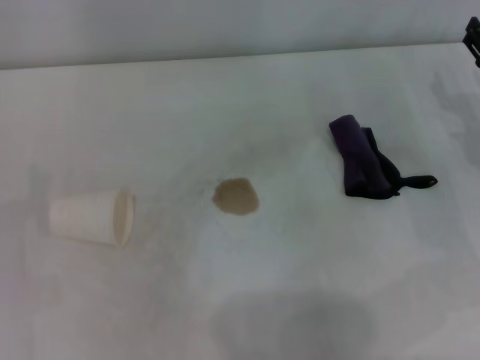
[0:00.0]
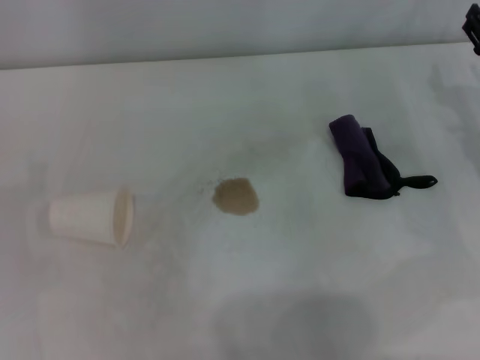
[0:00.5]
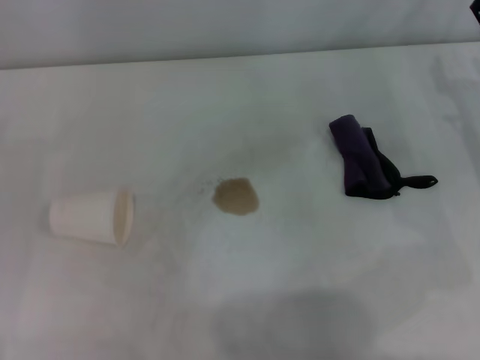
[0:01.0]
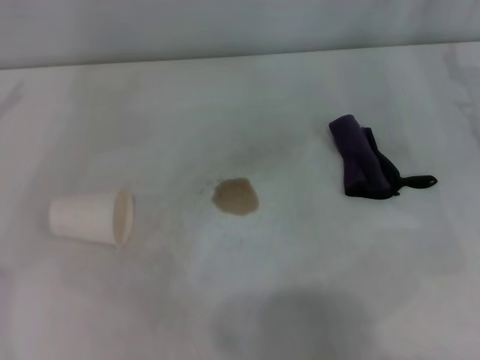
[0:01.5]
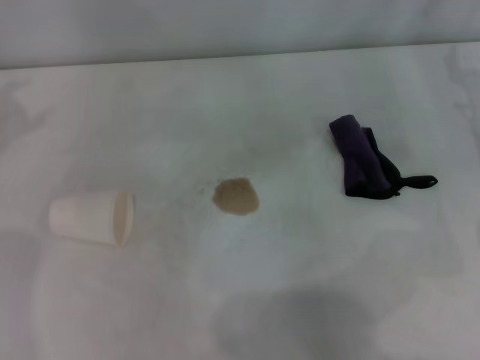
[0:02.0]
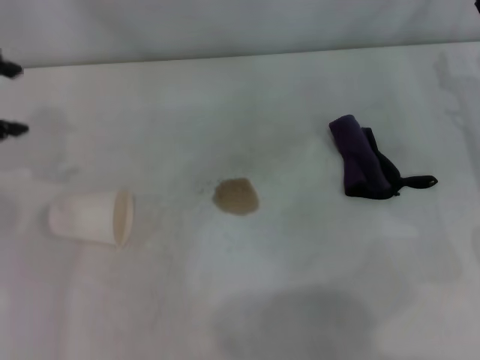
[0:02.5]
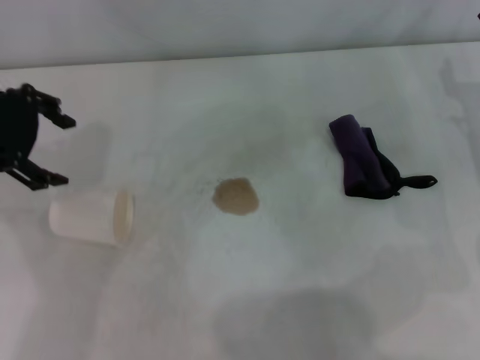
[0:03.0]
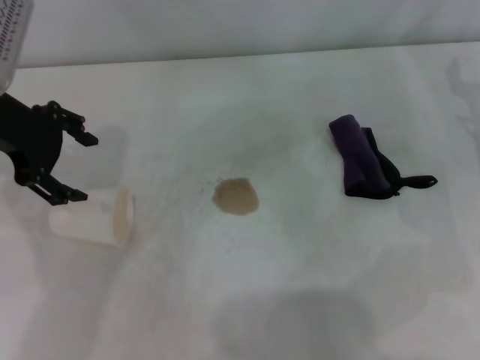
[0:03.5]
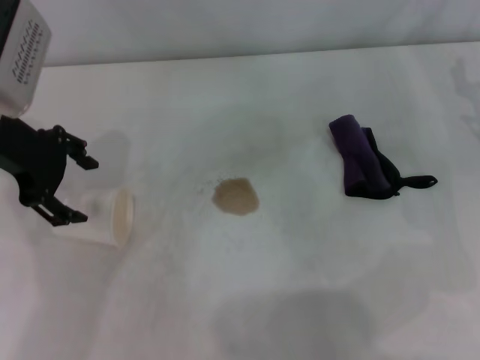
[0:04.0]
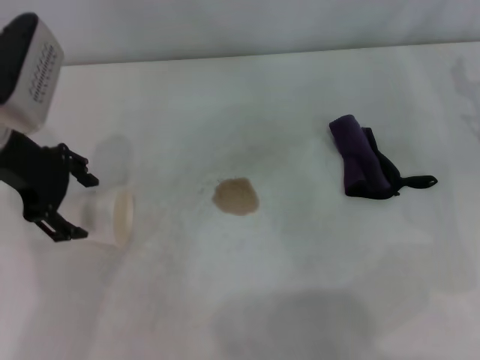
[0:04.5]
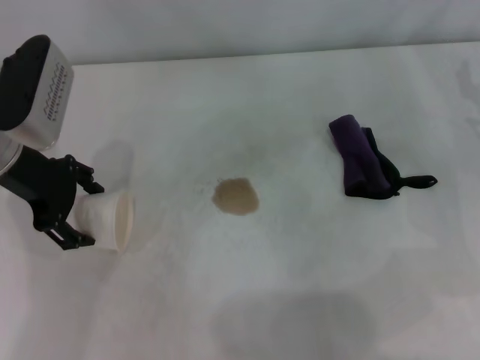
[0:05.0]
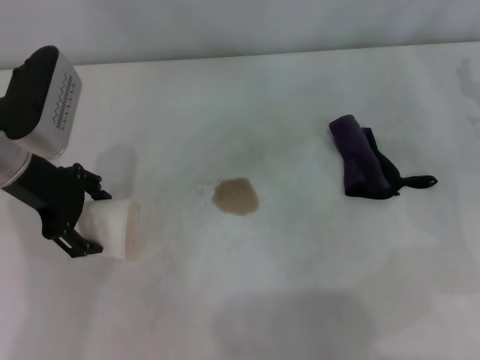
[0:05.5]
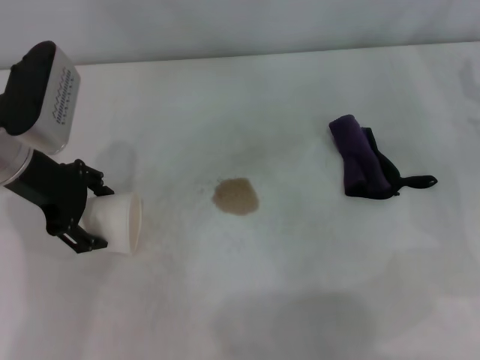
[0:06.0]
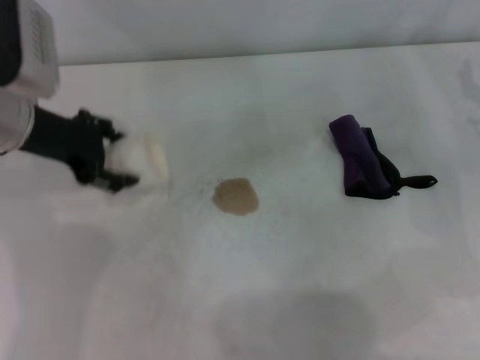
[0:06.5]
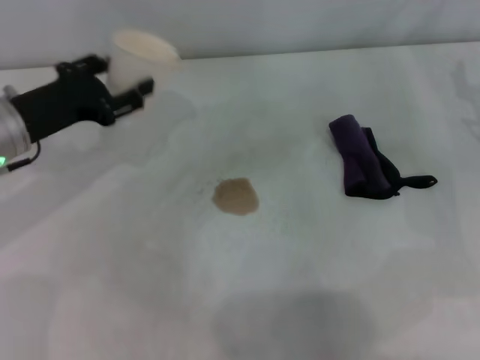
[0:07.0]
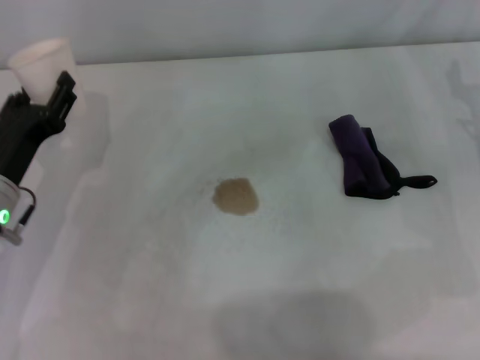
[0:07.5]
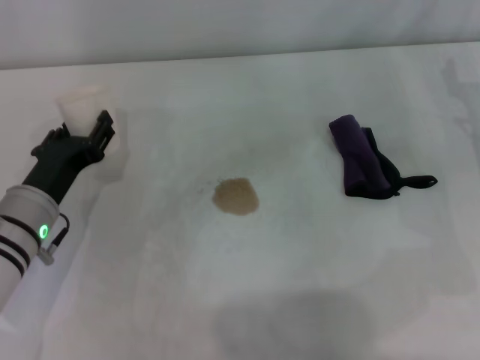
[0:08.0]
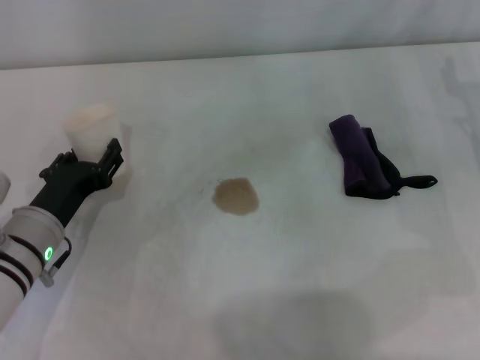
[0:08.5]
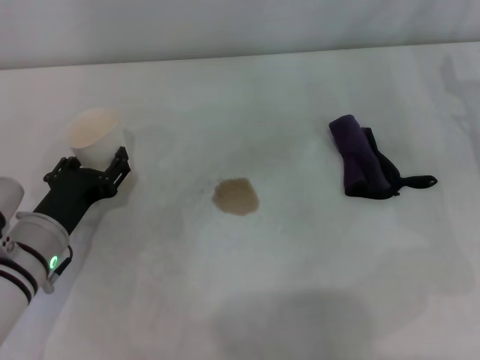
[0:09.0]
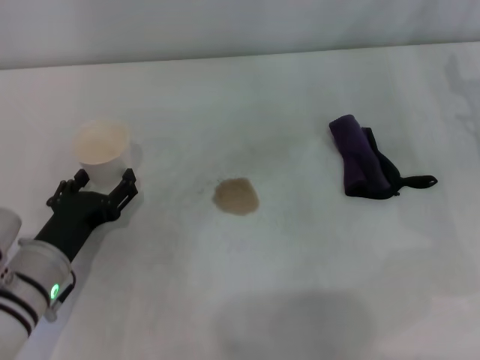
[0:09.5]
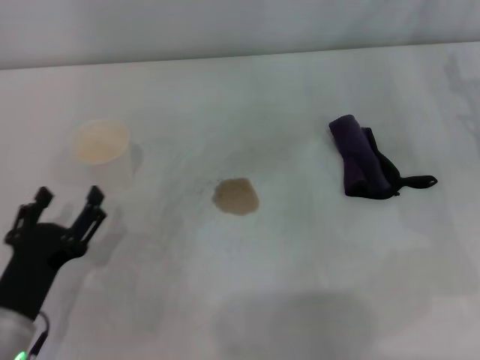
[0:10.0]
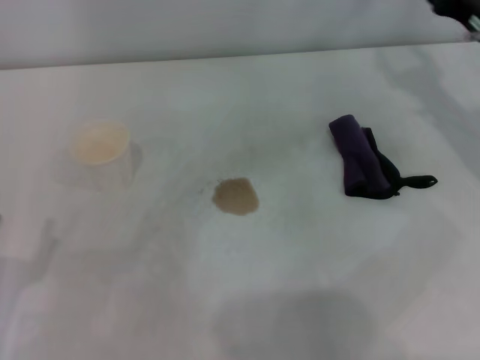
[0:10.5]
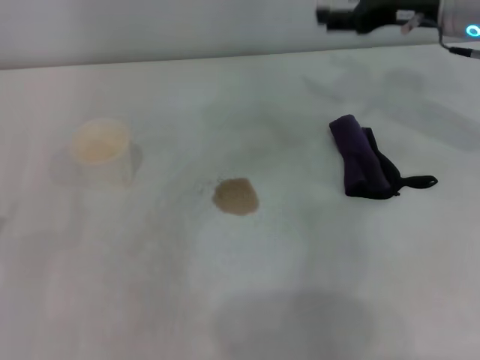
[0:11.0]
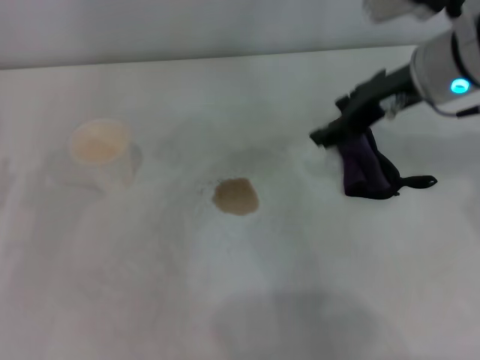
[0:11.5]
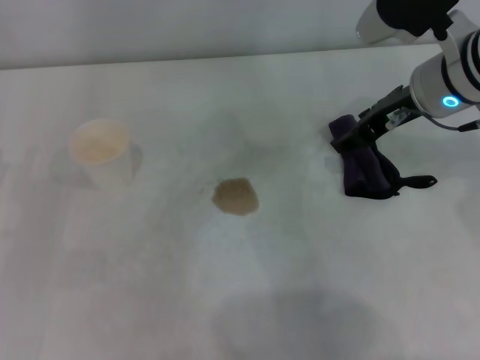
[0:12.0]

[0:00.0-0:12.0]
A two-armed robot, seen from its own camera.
Step, 0:00.0 to 0:06.0: Grasp the paper cup with the left gripper.
Step, 0:06.5 to 0:09.0: Stand the paper cup upright with the left gripper.
0:02.0 to 0:04.0: The left gripper heads to the right, covering some 15 cm.
0:04.0 to 0:06.0: There are only small adjustments of the grippers.
0:06.0 to 0:08.0: The left gripper is displaced downward and backward by some 15 cm, and closes its fingers.
0:08.0 to 0:10.0: The left gripper heads backward, covering approximately 10 cm, and opens.
0:10.0 to 0:12.0: The right gripper is displaced to the left and upward by some 15 cm. Meanwhile the left gripper moves to the left and forward, roughly 10 cm.

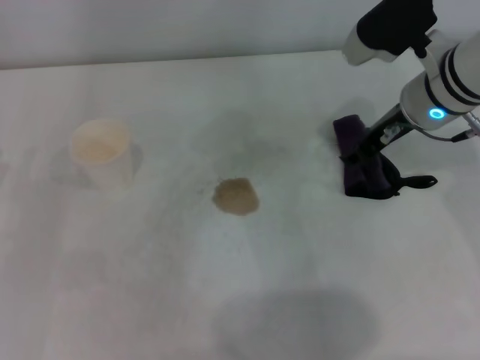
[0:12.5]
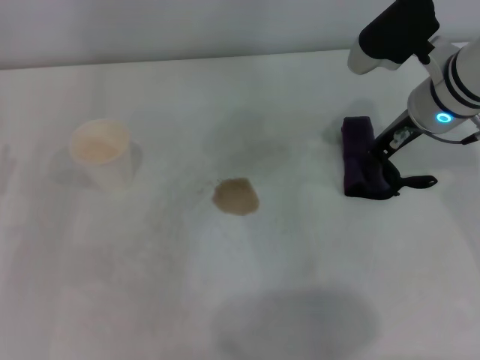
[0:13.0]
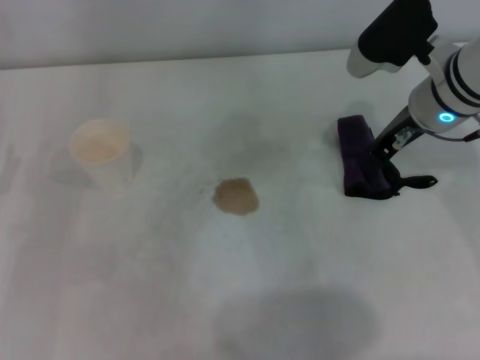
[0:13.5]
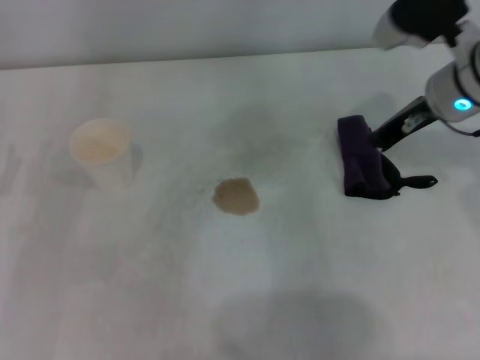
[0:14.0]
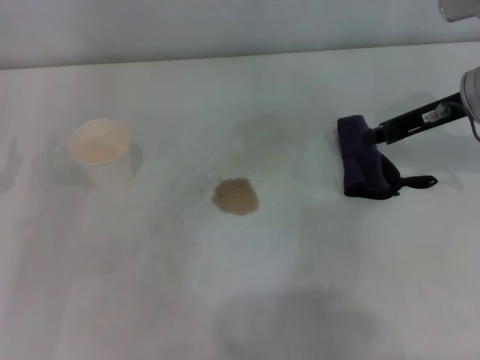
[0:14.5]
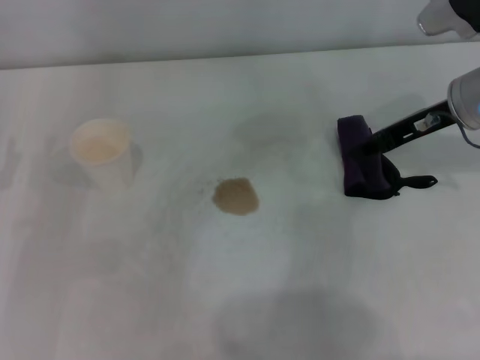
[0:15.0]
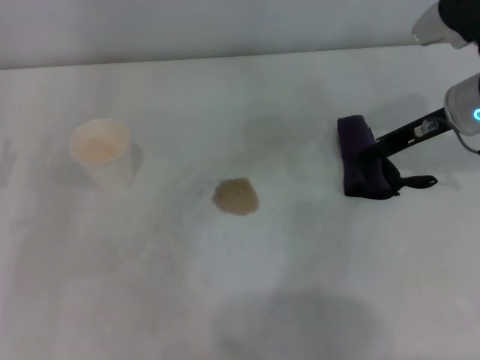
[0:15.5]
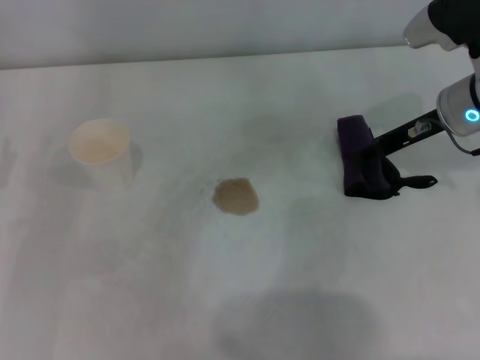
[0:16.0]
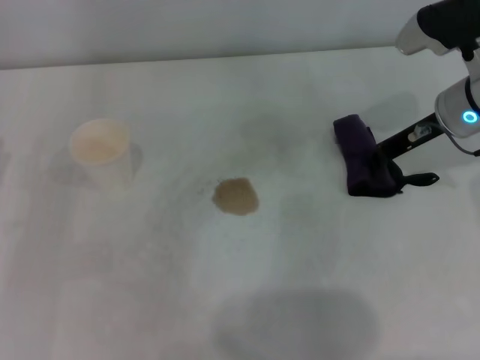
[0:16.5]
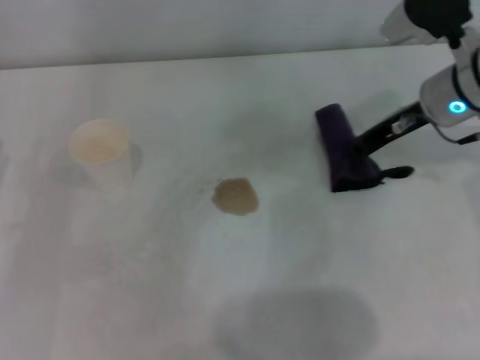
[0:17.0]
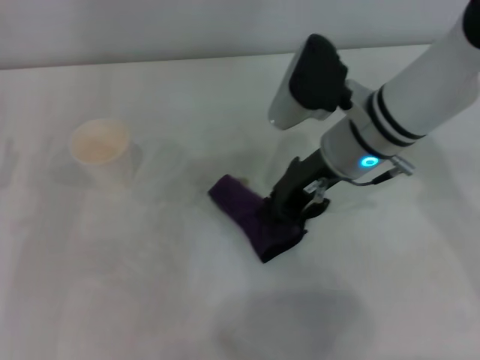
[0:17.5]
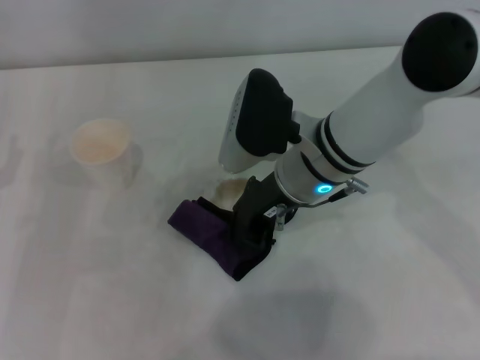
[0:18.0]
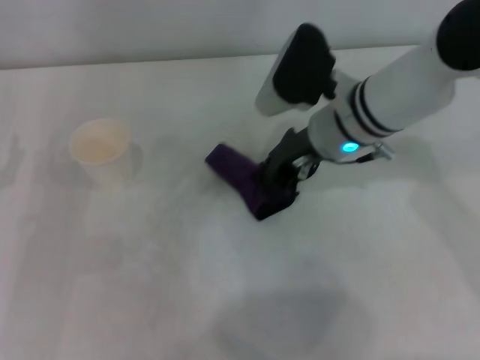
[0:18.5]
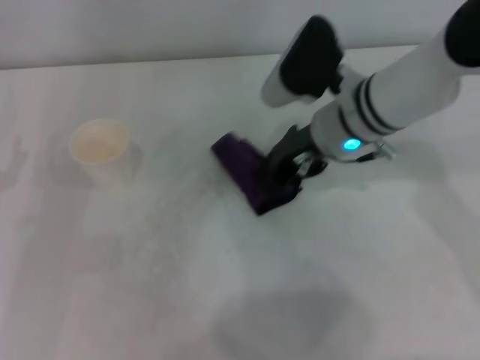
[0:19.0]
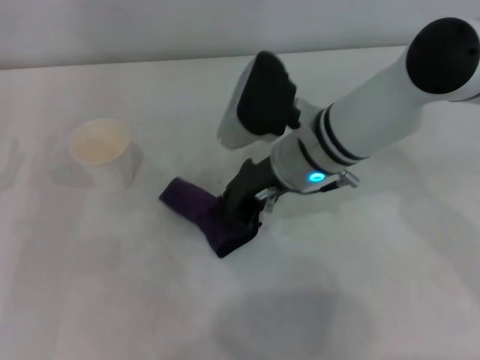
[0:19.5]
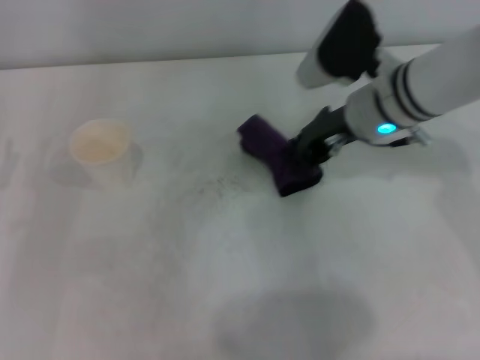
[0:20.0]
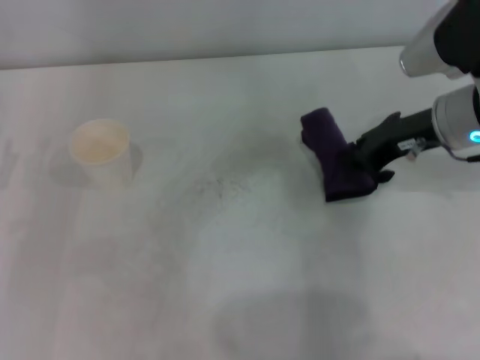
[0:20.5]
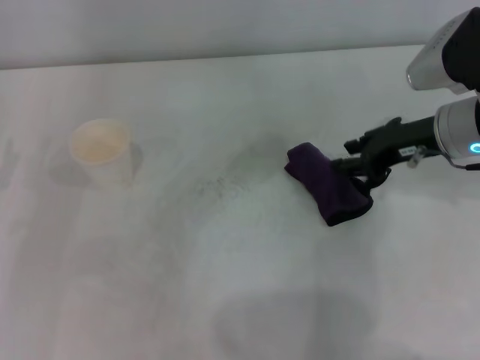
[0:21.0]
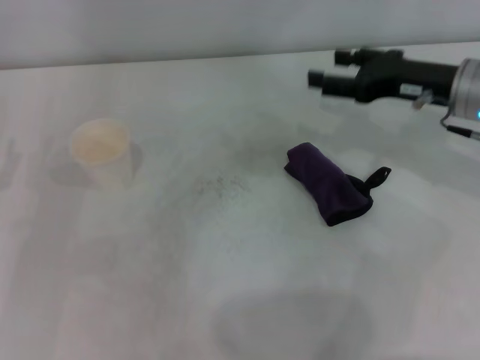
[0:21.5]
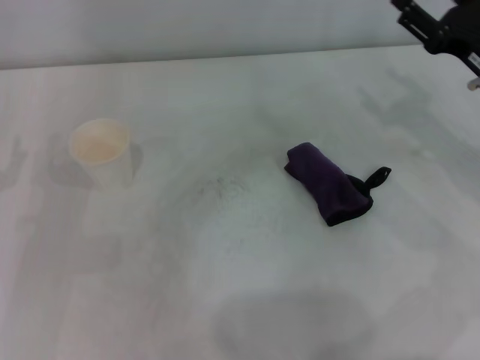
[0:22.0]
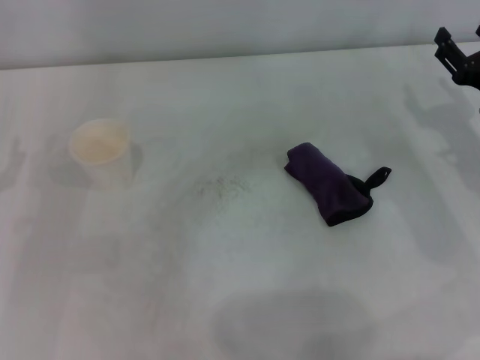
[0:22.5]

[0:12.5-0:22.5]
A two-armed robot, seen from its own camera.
Step, 0:12.5 to 0:16.5: Grasp the rag with the right gripper.
Step, 0:17.0 to 0:19.5: Wipe the stains off the table with the right gripper.
0:12.5 to 0:14.5: The right gripper travels to the right by approximately 5 cm, and closes up.
0:14.5 to 0:16.5: The right gripper opens, then closes once more.
0:16.5 to 0:18.5: The right gripper goes about 15 cm to the left.
0:18.5 to 0:20.5: The right gripper goes approximately 10 cm to the right.
0:20.5 to 0:22.5: The right gripper goes roughly 10 cm to the right and downward, and opens up.
